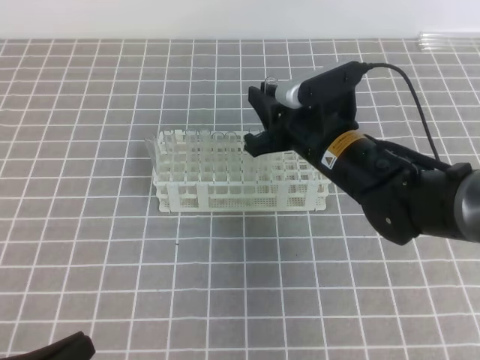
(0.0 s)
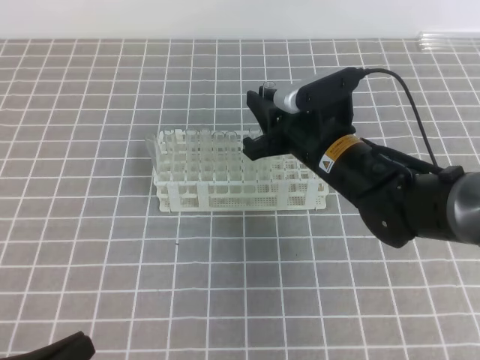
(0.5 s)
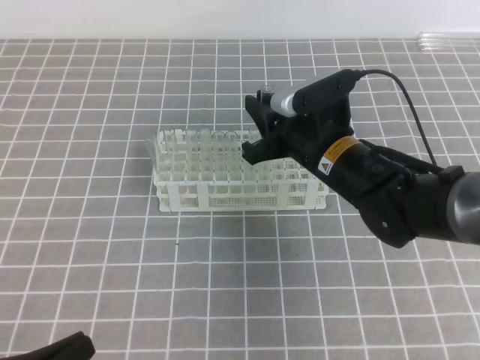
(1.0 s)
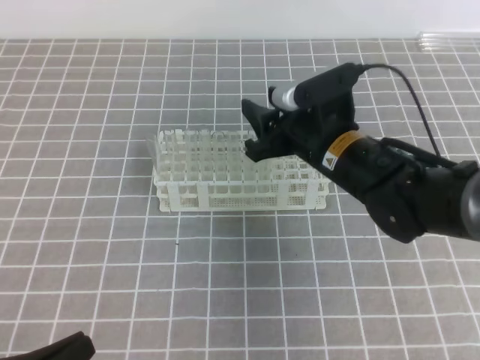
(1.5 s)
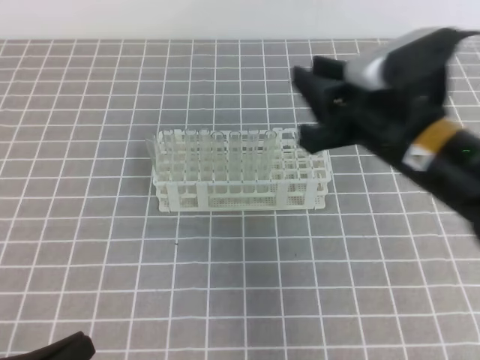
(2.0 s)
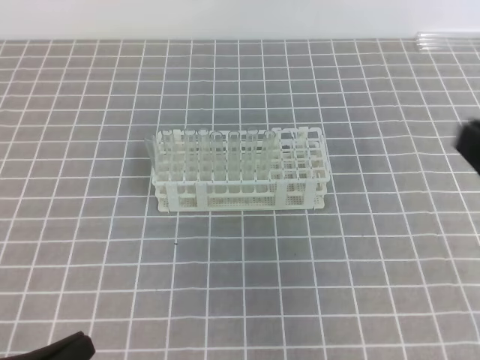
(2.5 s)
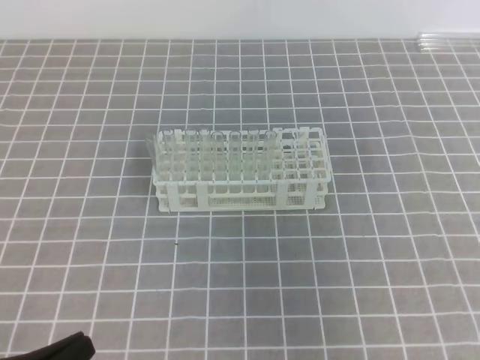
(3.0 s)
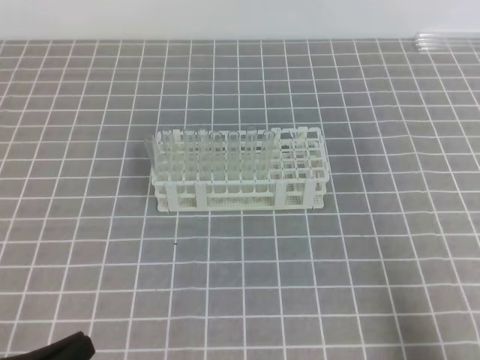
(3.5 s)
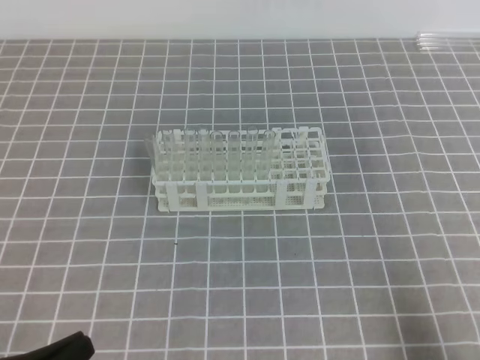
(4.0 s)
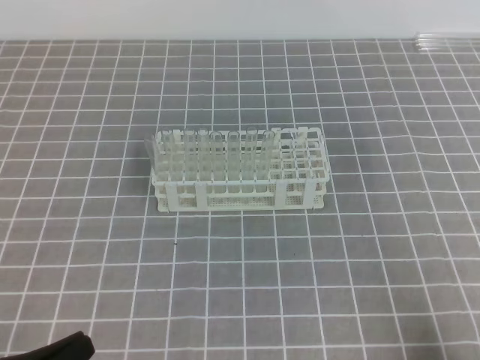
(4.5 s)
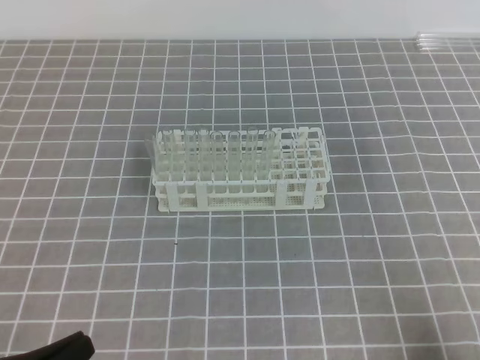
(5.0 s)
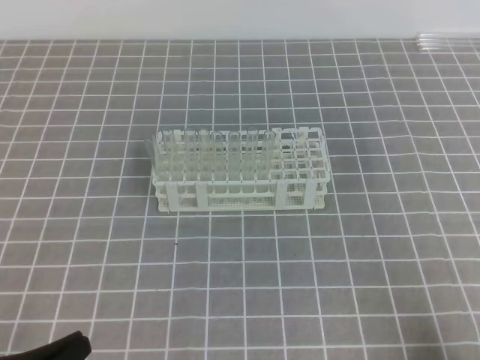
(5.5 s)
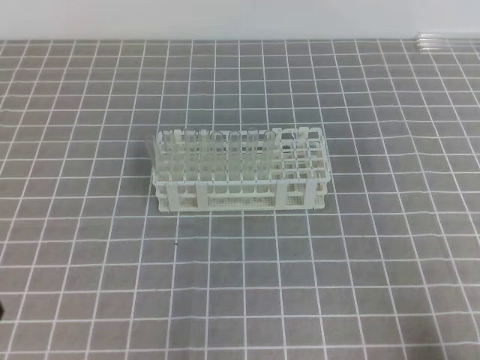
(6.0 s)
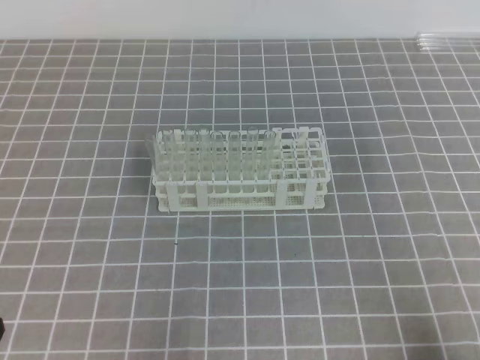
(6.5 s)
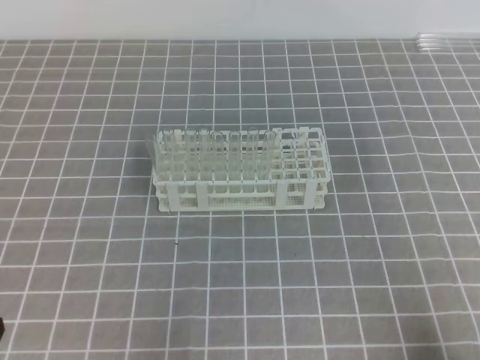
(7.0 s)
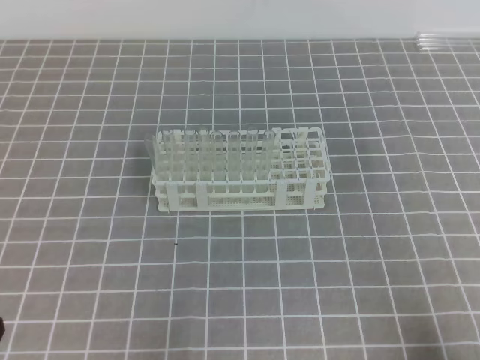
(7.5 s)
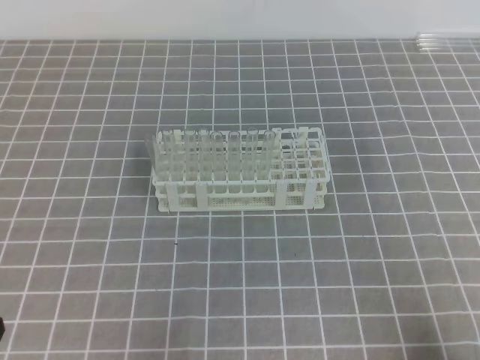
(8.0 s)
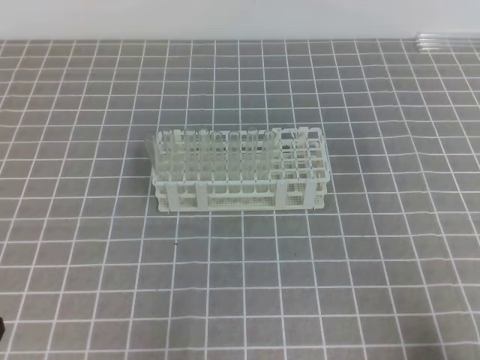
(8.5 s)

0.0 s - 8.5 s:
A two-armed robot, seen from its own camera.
0.0 s - 2.0 s: The right gripper heads upward and backward, covering about 10 cm, and opens.
2.0 s - 4.0 s: The right gripper is displaced backward, to the right and downward by approximately 30 cm, and closes up.
6.5 s - 8.5 s: Neither gripper changes place.
